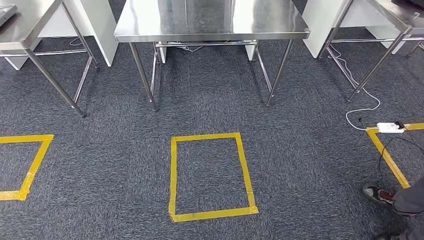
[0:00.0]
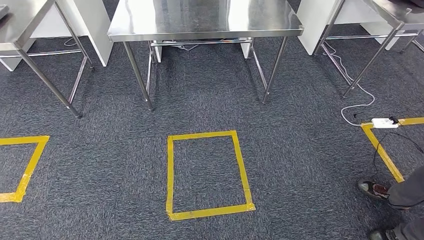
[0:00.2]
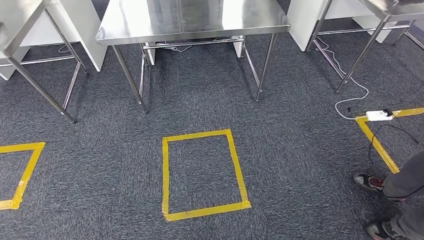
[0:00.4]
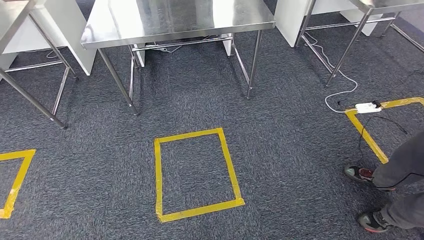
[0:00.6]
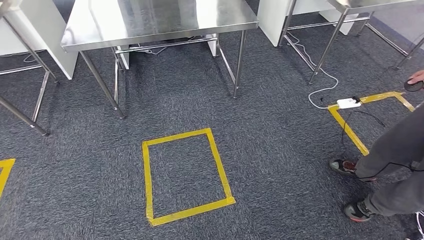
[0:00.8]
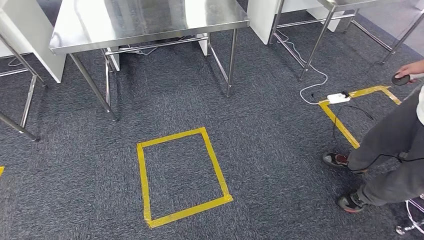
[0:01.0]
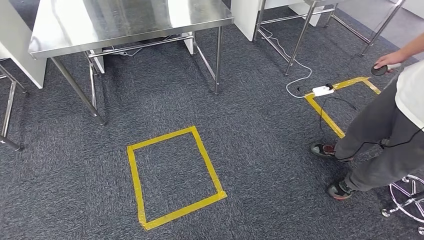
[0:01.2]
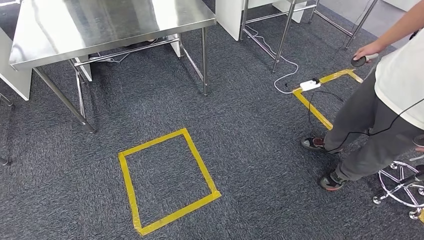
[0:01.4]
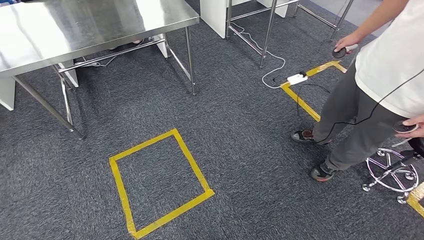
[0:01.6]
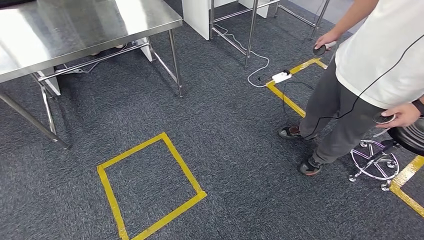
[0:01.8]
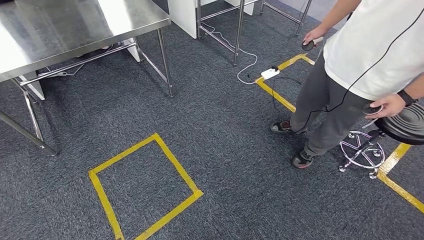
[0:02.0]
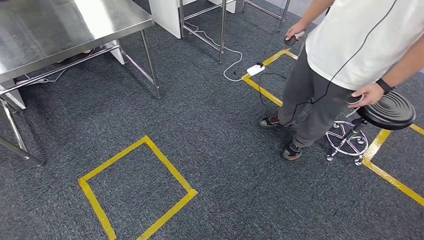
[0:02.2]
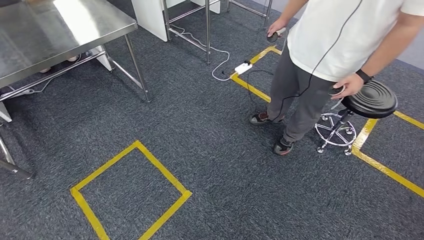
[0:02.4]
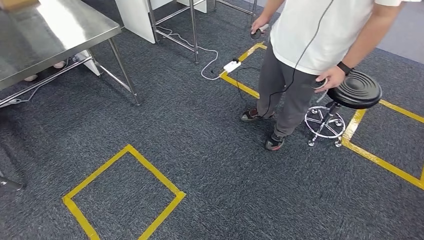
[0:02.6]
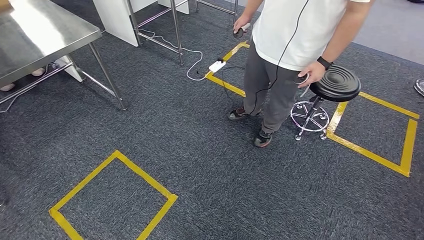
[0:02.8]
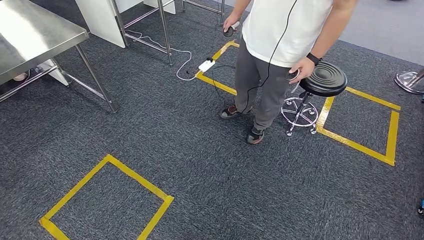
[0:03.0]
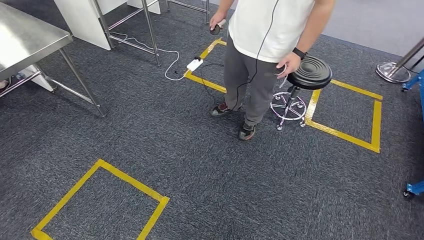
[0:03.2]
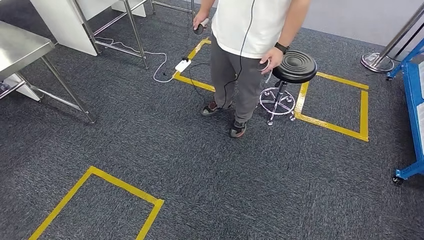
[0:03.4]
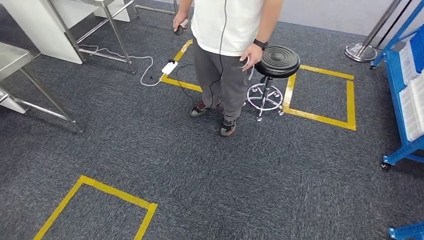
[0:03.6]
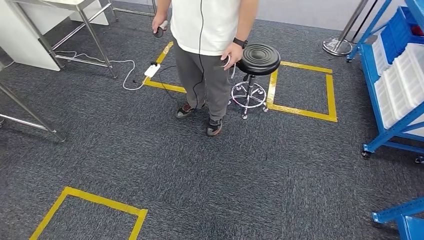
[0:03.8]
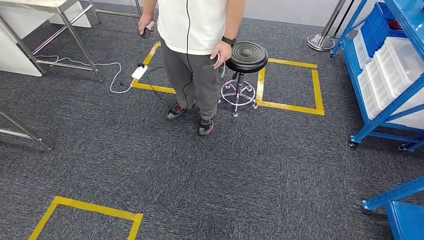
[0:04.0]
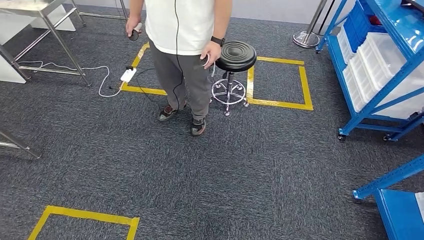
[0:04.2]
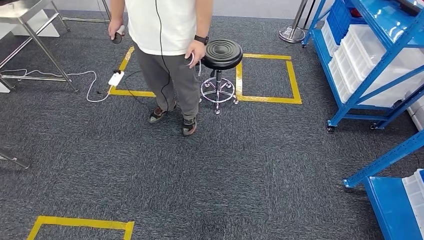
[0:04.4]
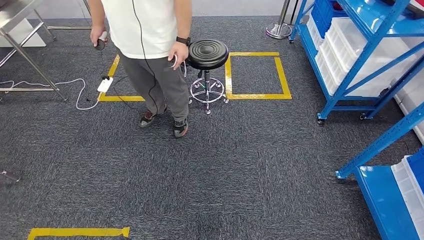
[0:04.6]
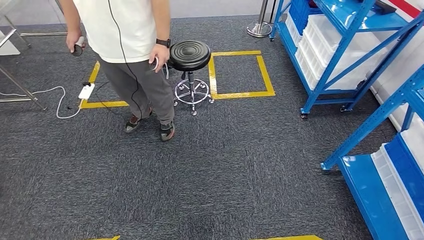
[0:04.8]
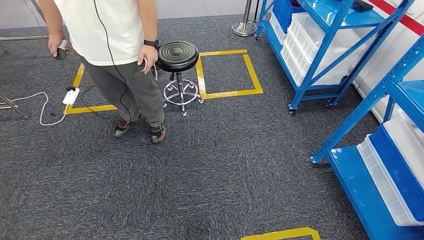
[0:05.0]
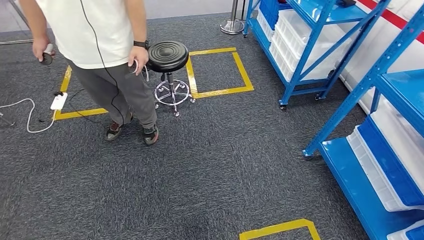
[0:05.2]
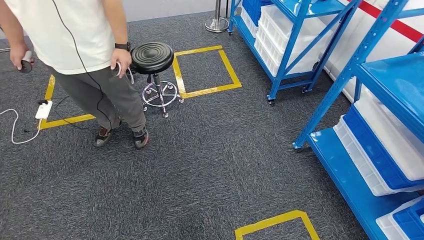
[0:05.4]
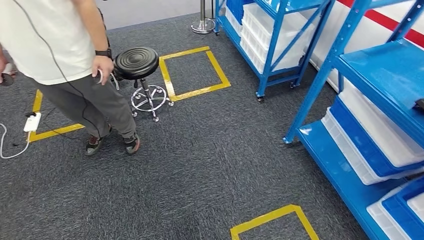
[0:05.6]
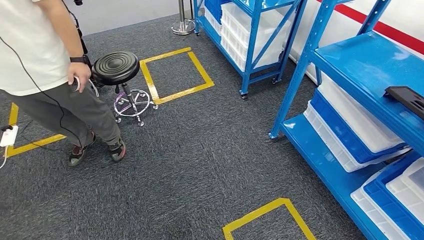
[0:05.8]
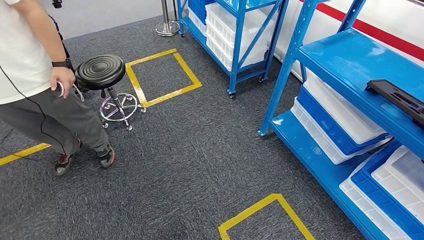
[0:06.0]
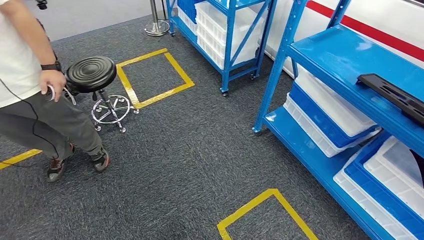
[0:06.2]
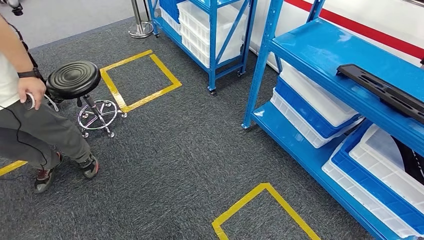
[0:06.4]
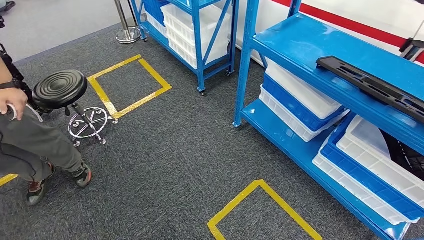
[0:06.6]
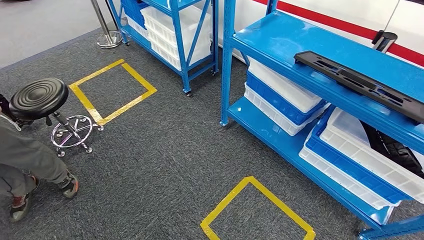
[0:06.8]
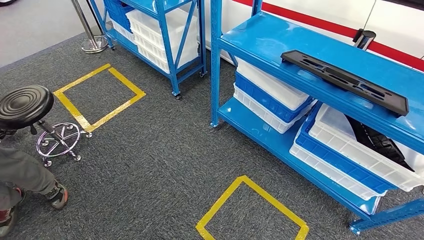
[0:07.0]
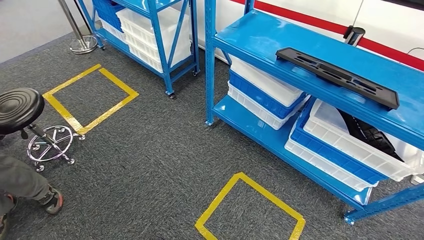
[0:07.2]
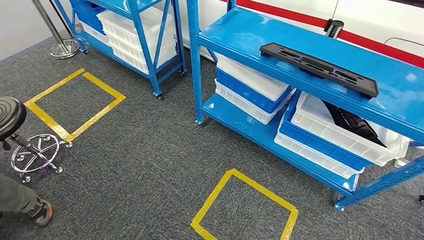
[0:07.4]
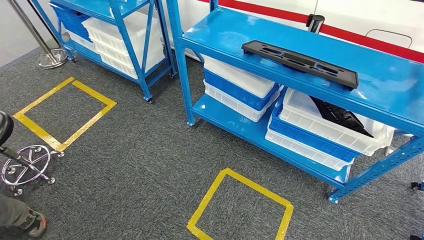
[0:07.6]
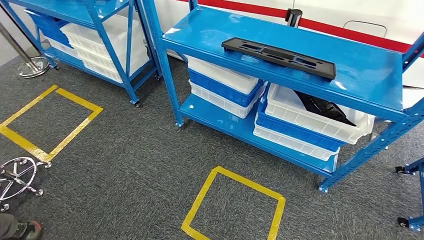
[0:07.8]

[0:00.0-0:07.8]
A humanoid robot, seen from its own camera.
Step, 0:00.0 to 0:07.8: Move to the initial position of the shelf.
